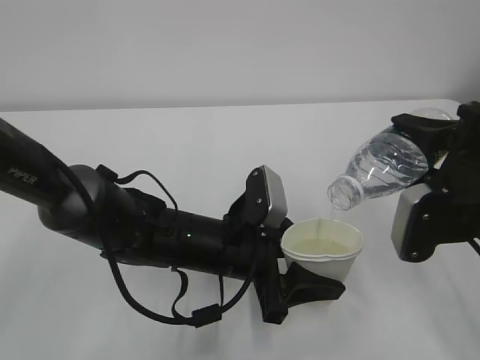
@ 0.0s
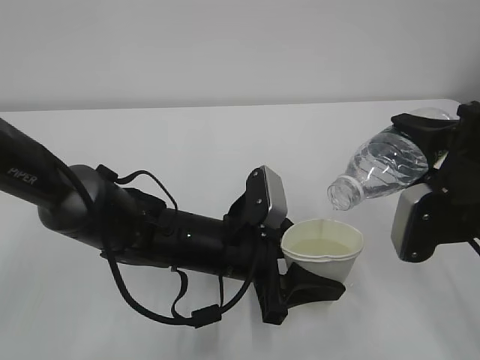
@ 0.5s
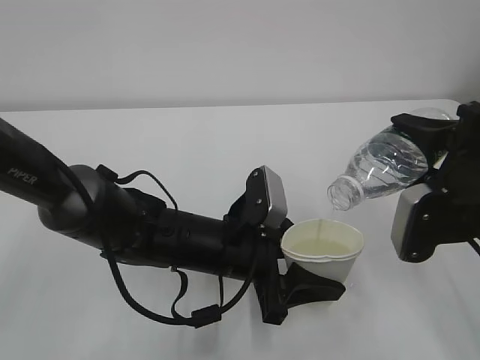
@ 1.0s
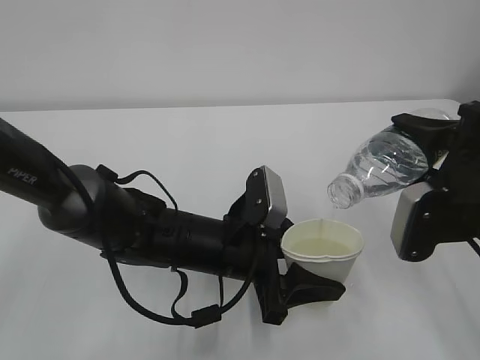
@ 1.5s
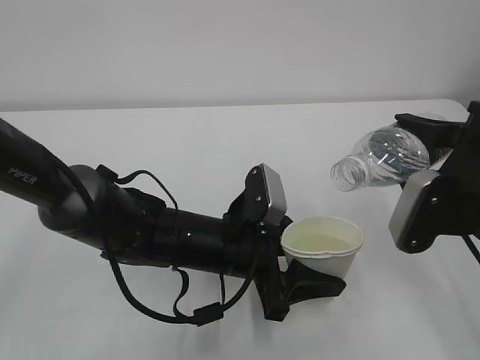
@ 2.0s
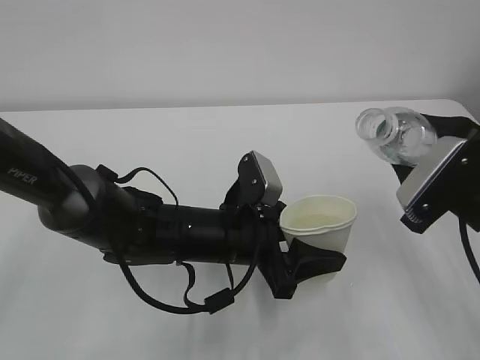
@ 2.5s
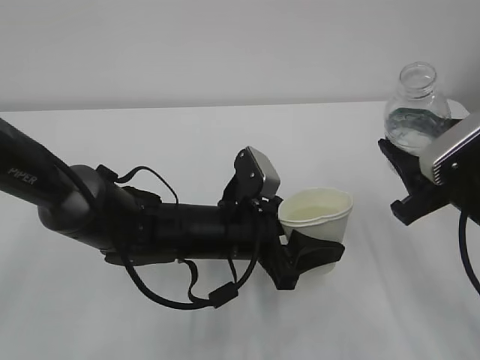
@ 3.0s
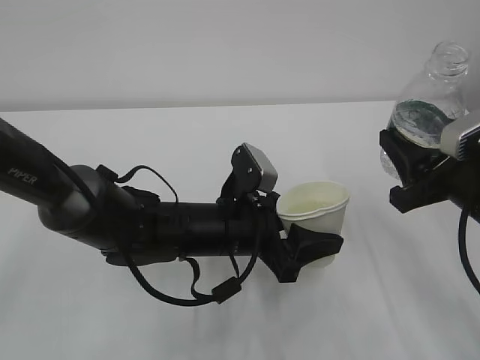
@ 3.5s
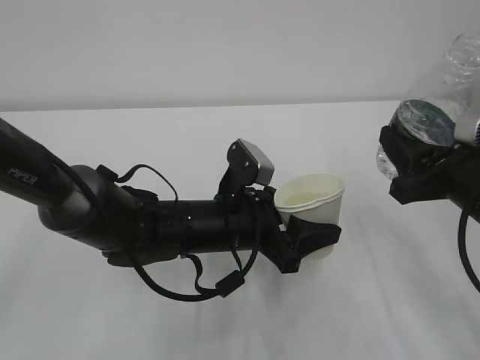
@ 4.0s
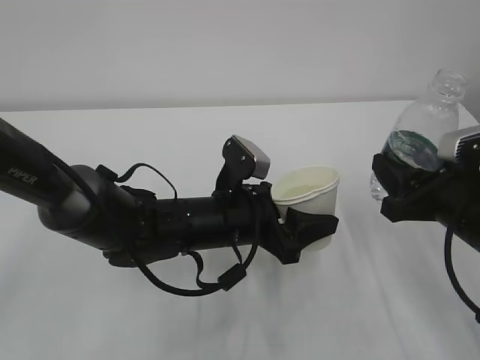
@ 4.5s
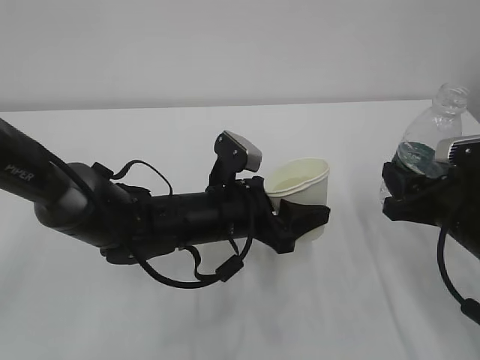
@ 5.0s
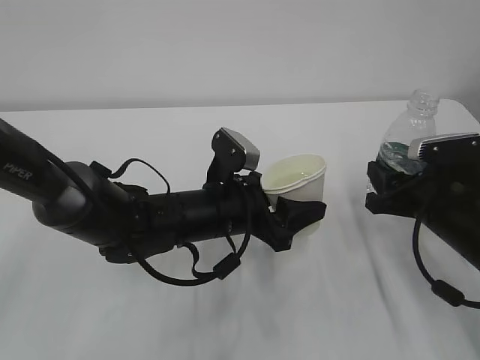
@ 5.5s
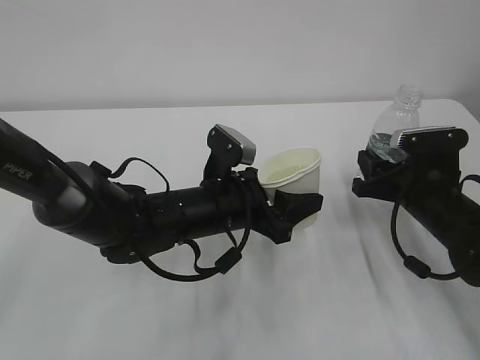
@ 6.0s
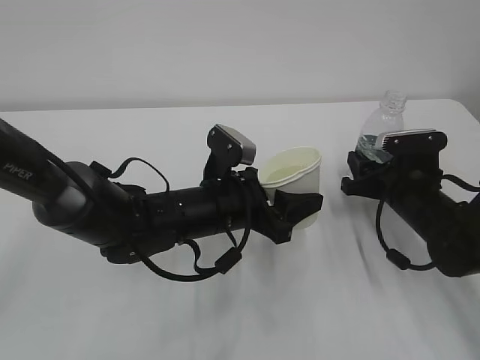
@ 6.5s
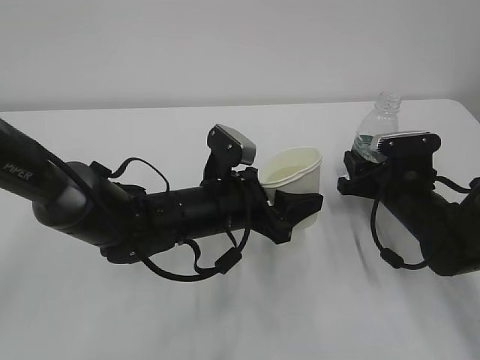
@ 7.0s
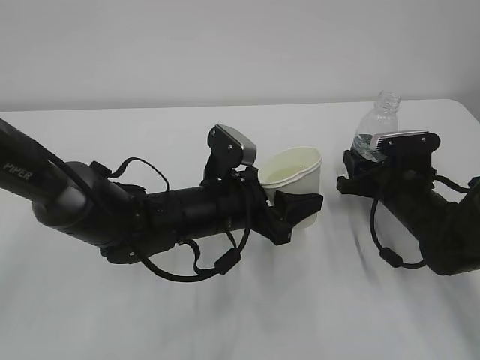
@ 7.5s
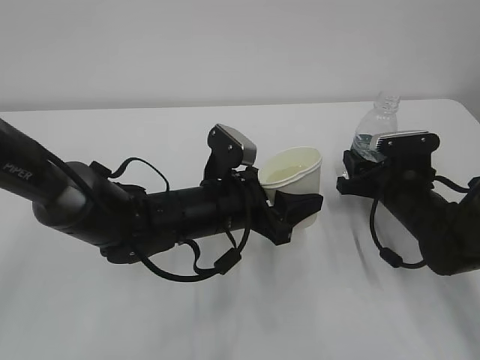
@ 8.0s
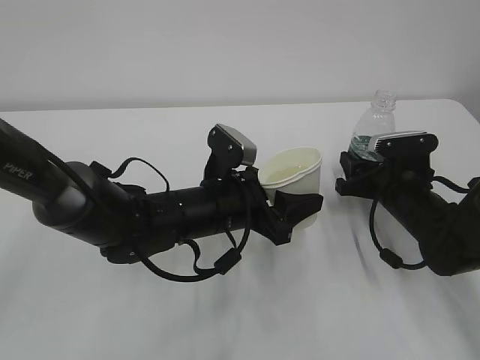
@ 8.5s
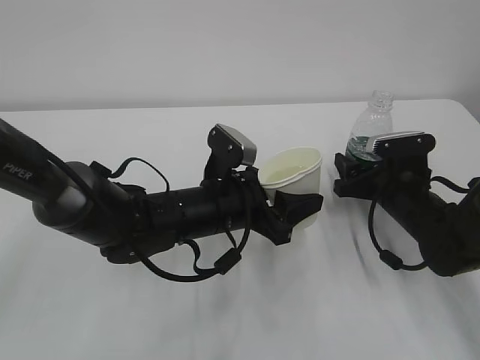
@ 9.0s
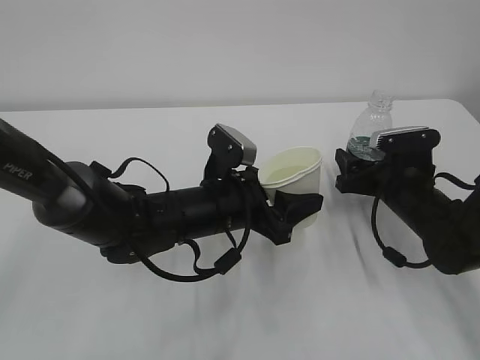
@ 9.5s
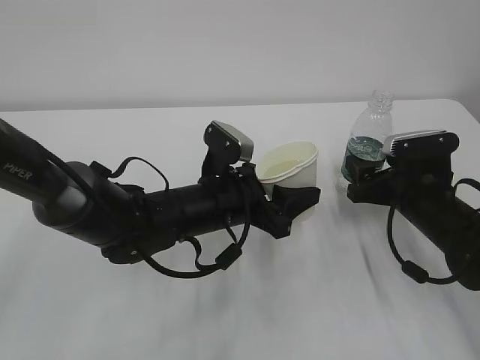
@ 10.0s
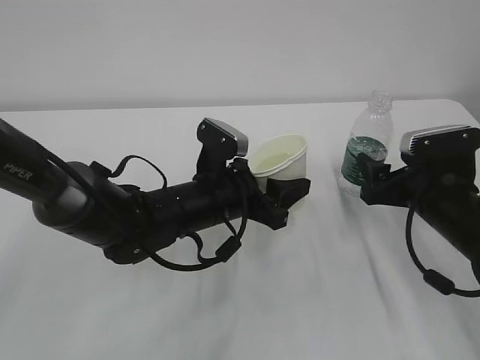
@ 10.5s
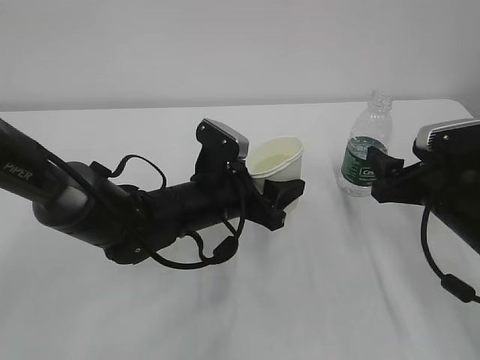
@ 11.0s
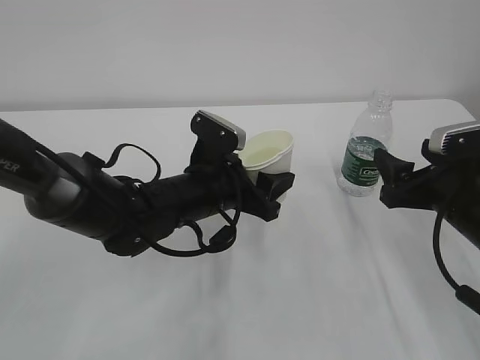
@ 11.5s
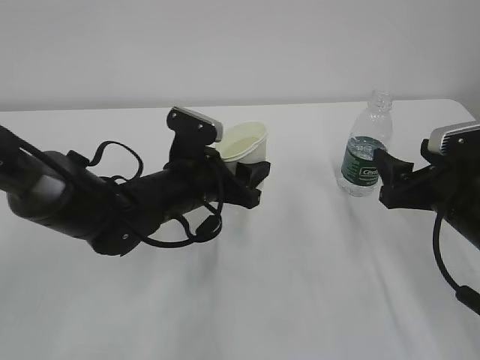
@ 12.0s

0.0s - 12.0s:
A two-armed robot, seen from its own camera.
0.0s - 2.0s: The grippers stay close to where they were, moving slightly.
4.0s - 6.0s: The right gripper travels downward and forward by about 15 cm.
6.0s - 8.0s: The grippers move only a little.
8.0s - 10.0s: The right gripper opens up.
10.0s - 12.0s: The right gripper moves backward and upward, about 10 cm.

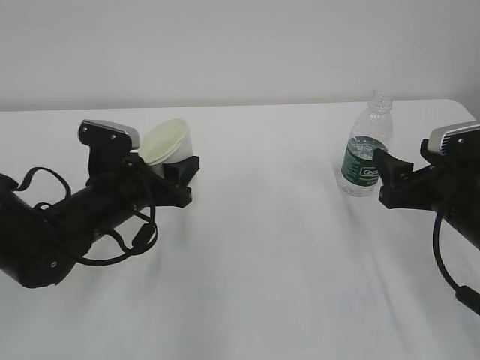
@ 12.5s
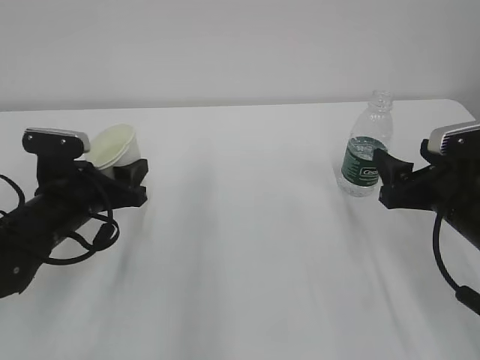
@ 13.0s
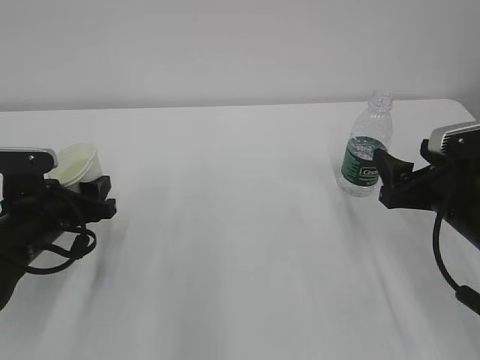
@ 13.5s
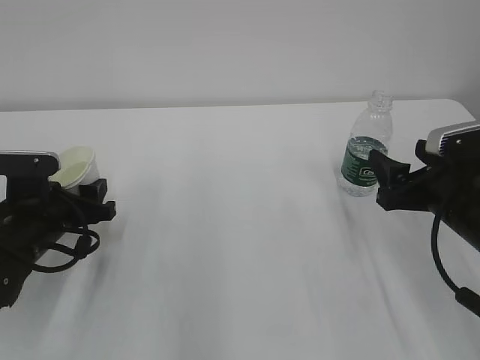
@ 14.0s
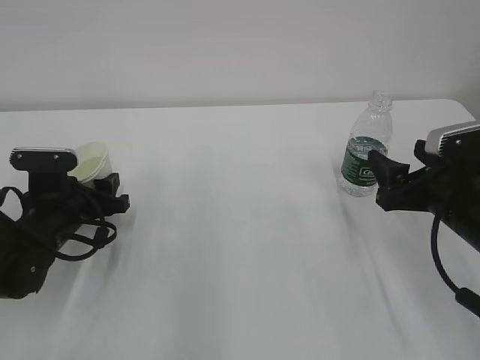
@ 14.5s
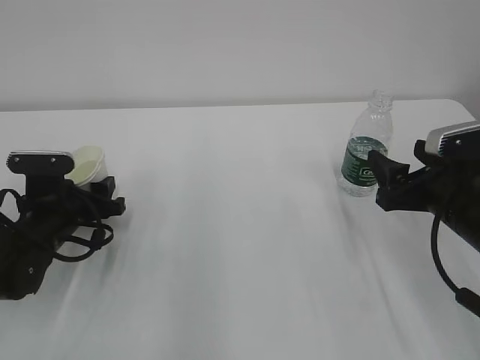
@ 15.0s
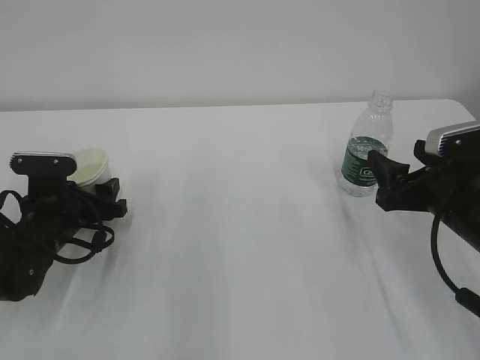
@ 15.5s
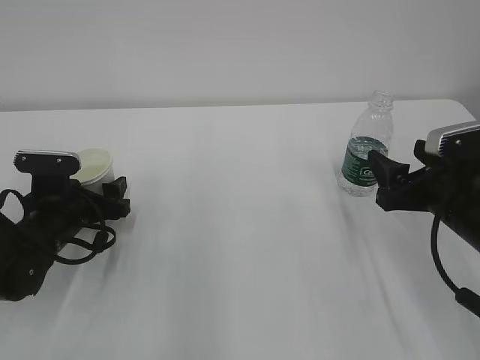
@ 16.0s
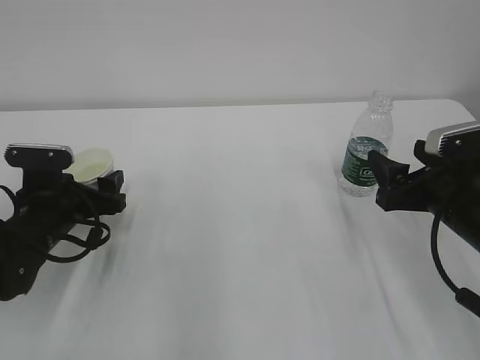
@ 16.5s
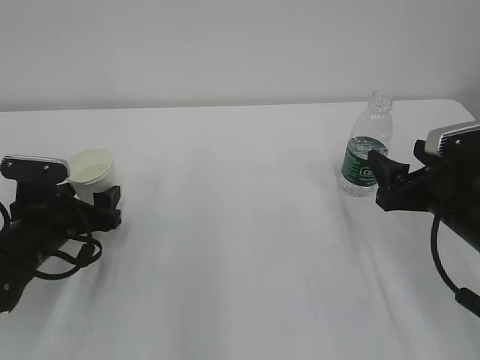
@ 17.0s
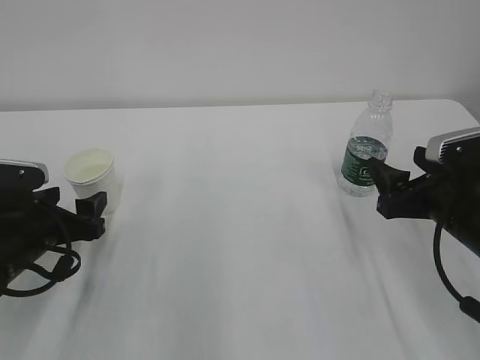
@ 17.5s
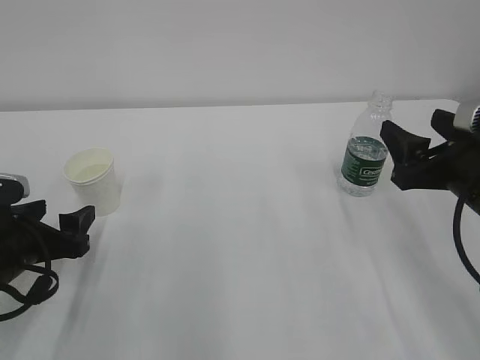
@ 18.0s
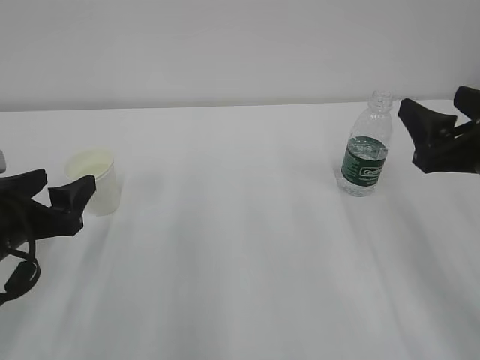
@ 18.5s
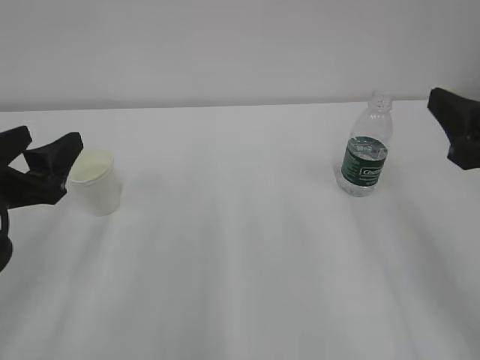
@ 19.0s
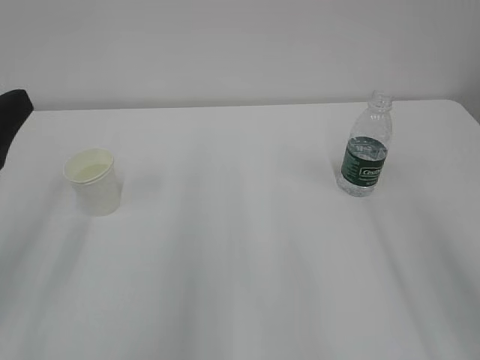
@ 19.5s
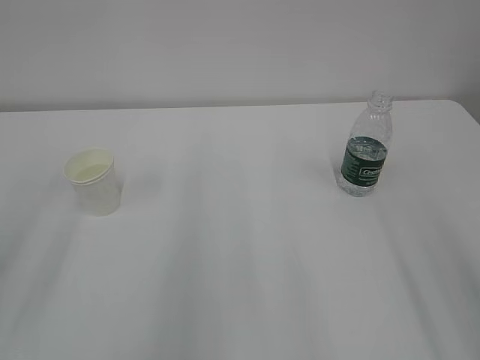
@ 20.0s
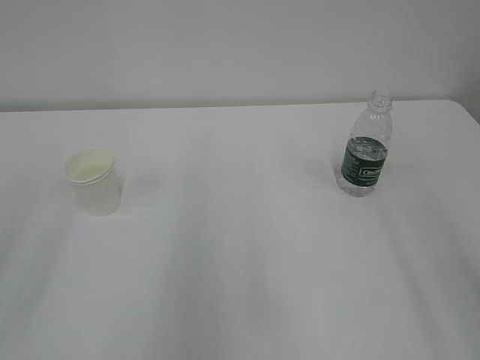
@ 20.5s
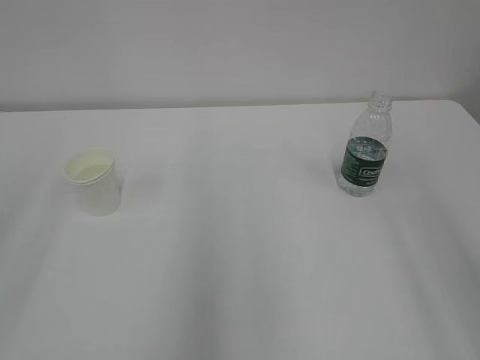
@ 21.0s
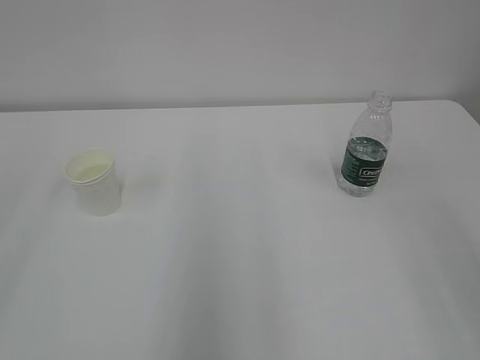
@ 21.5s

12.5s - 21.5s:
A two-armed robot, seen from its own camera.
12.5s - 14.5s: The left gripper shifts roughly 10 cm to the left.
14.5s - 17.0s: The left gripper opens.
17.0s - 19.5s: The two grippers go some 20 cm upward and backward.
19.5s - 21.5s: The left gripper heads upward and backward, covering about 20 cm.

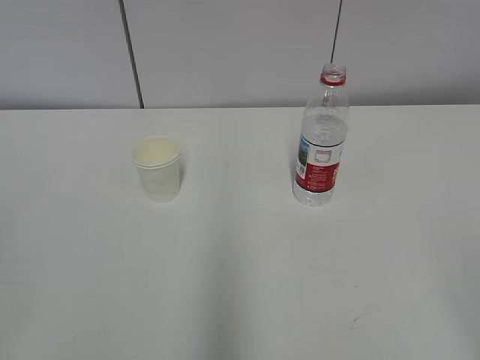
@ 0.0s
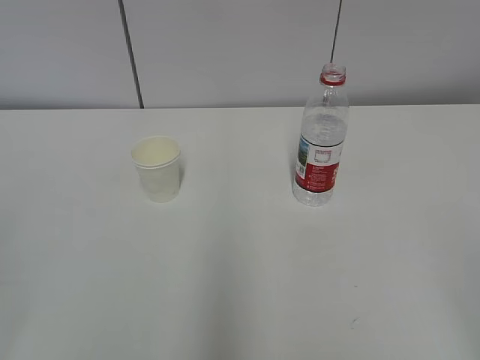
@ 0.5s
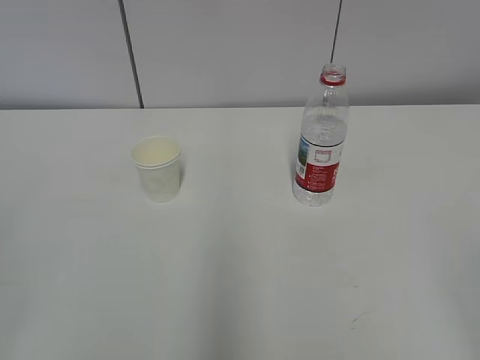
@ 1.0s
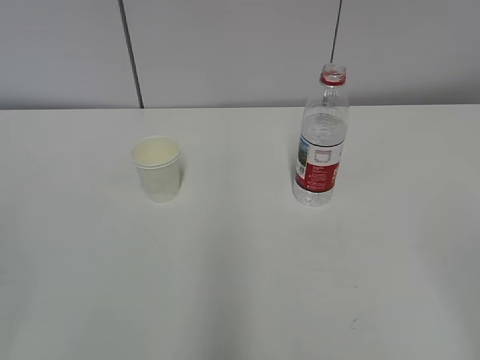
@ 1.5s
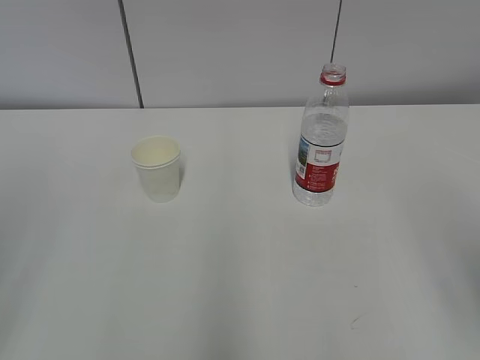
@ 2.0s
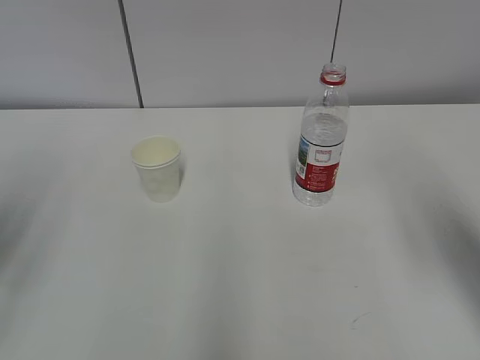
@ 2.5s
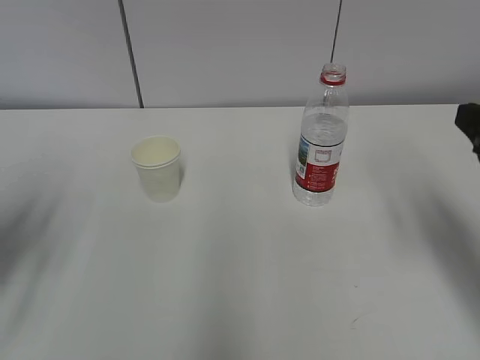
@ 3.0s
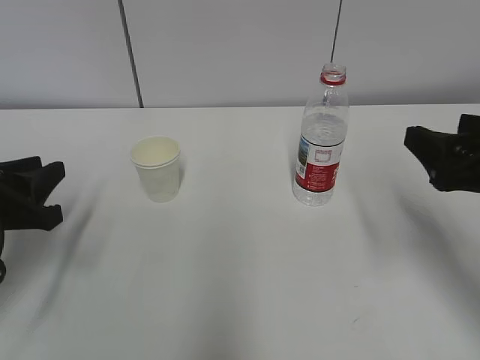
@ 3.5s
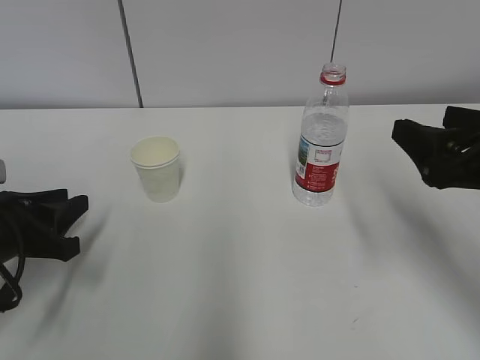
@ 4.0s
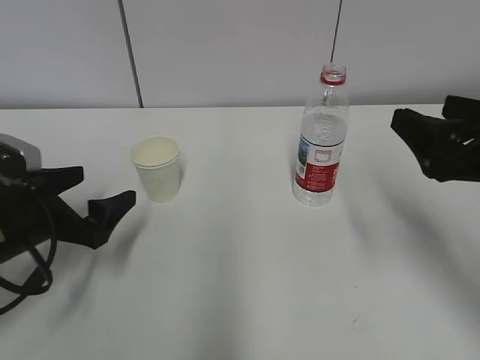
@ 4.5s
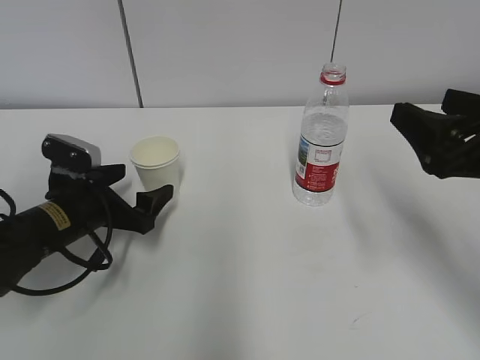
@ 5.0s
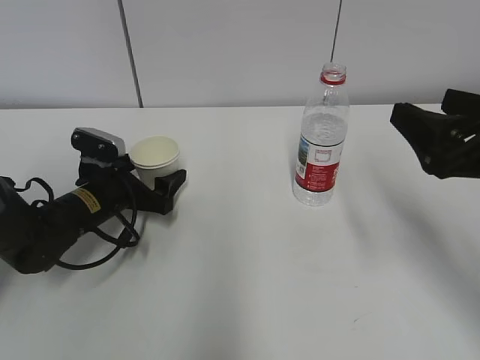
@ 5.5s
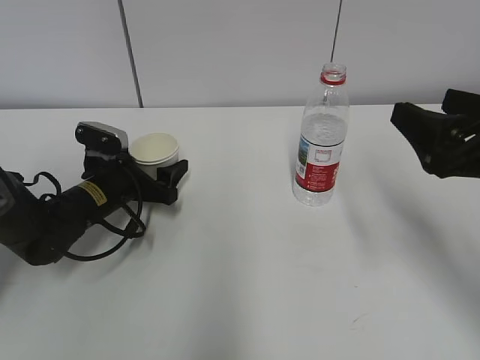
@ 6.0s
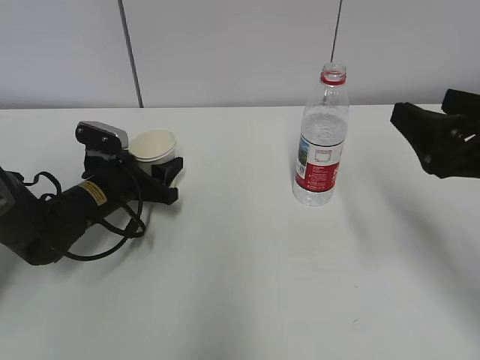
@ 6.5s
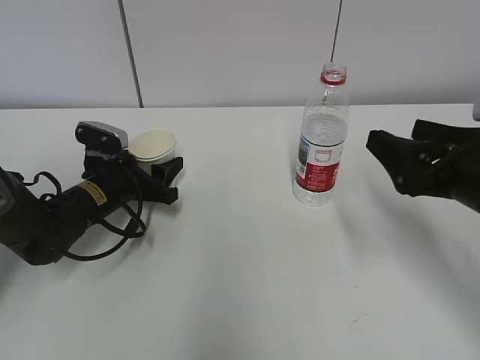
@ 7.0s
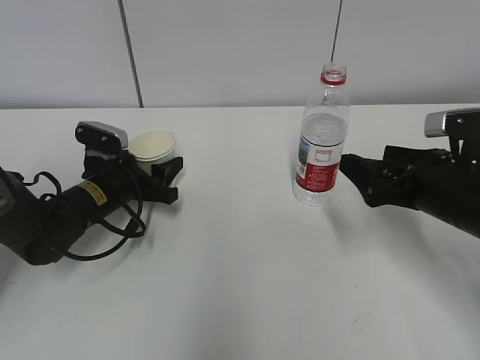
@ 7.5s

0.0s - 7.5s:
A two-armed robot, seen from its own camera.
Step, 0.0s - 7.0s: Grab the paper cup with the left hand.
2.0s - 4.0s: The left gripper shifts some 25 cm downward and forward, while the right gripper moves forward and downward, roughly 20 cm.
4.0s - 5.5s: The left gripper goes roughly 15 cm forward, to the right and downward, and opens its fingers.
5.5s - 7.5s: The right gripper is displaced downward and forward by about 10 cm. The left gripper closes its fingers.
